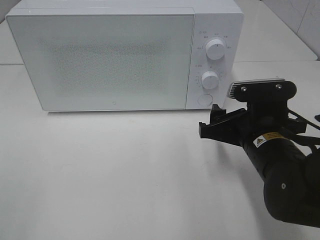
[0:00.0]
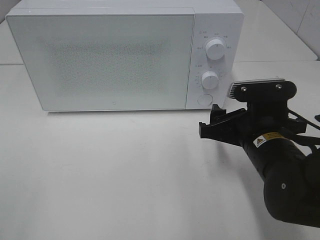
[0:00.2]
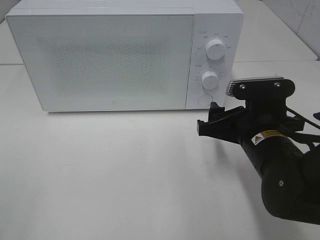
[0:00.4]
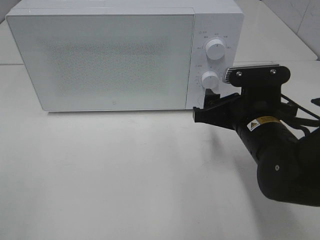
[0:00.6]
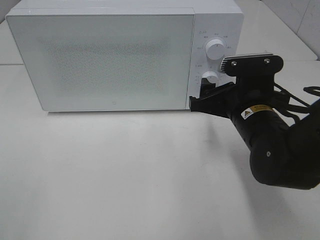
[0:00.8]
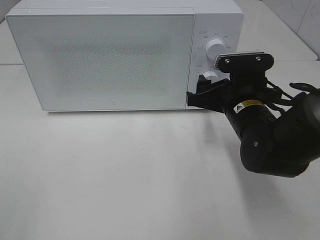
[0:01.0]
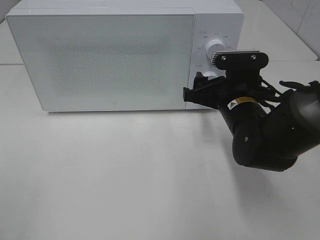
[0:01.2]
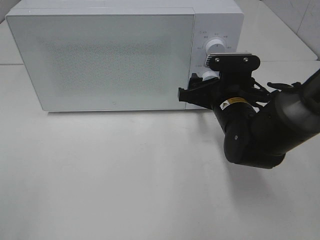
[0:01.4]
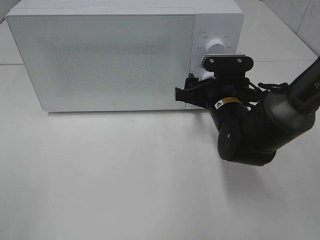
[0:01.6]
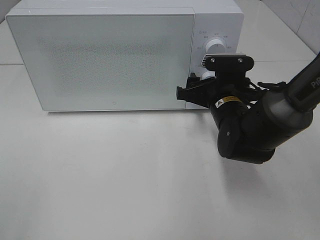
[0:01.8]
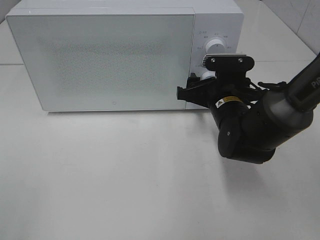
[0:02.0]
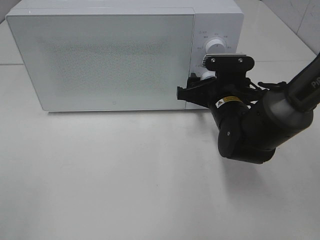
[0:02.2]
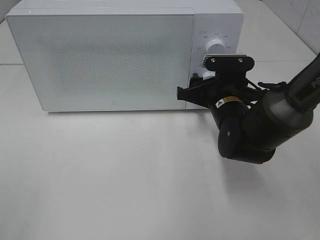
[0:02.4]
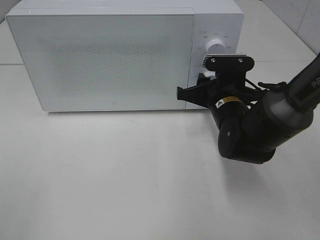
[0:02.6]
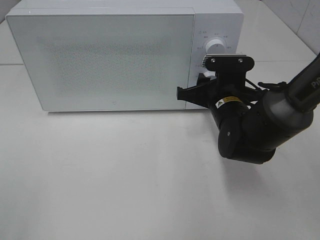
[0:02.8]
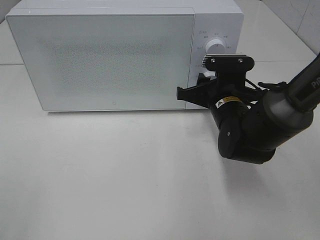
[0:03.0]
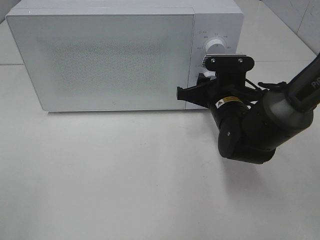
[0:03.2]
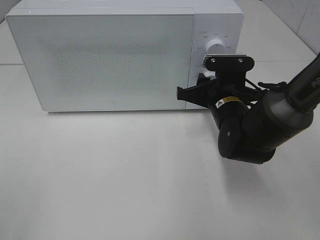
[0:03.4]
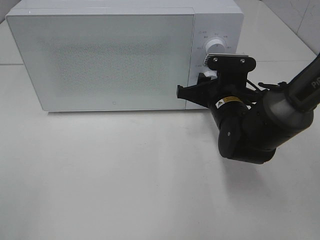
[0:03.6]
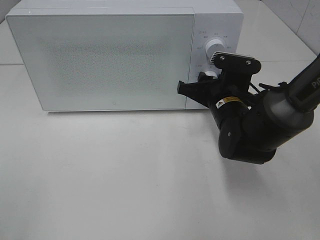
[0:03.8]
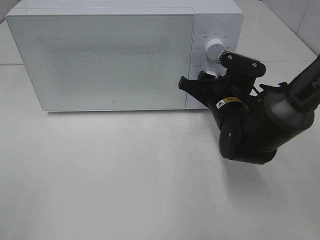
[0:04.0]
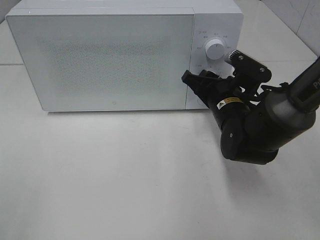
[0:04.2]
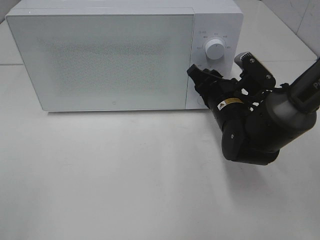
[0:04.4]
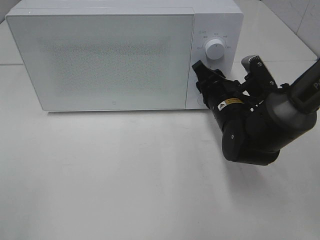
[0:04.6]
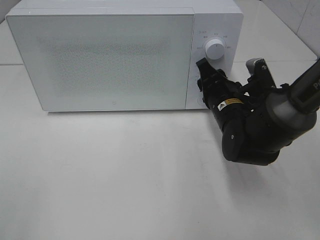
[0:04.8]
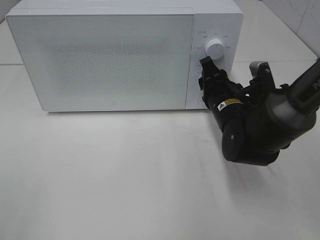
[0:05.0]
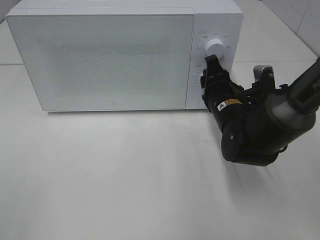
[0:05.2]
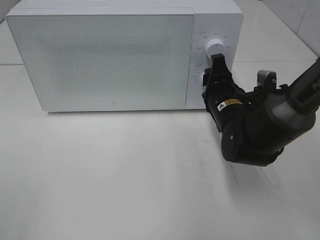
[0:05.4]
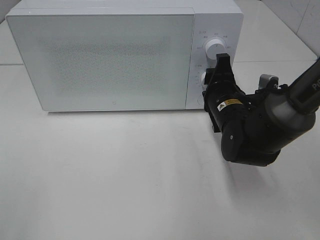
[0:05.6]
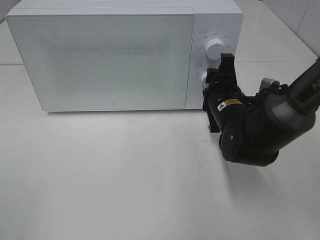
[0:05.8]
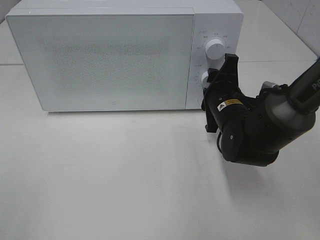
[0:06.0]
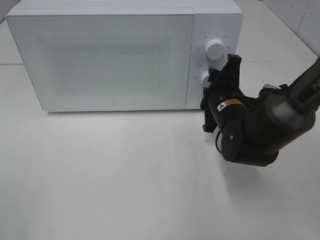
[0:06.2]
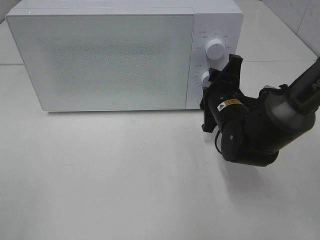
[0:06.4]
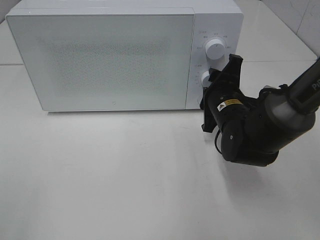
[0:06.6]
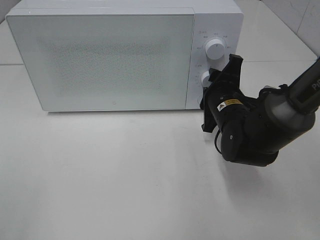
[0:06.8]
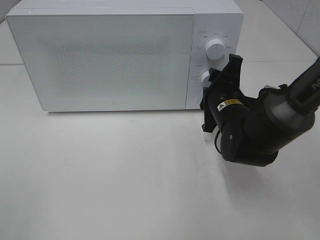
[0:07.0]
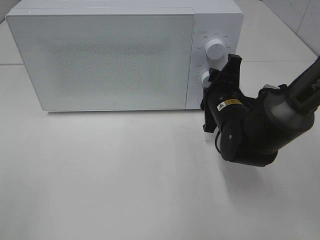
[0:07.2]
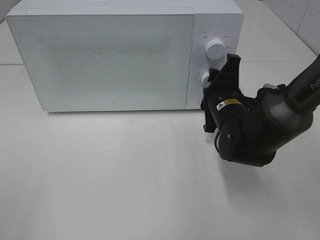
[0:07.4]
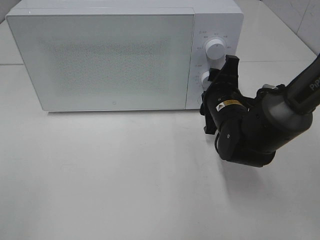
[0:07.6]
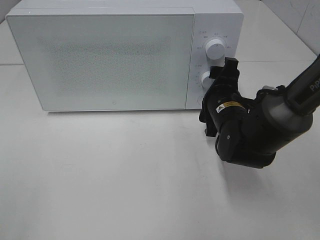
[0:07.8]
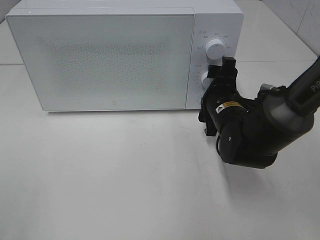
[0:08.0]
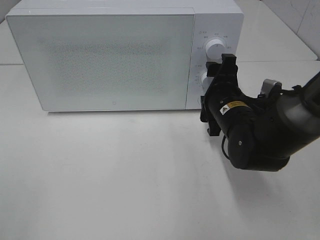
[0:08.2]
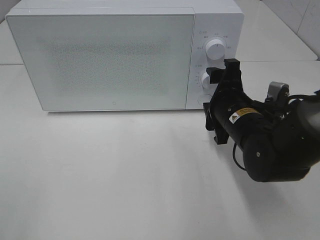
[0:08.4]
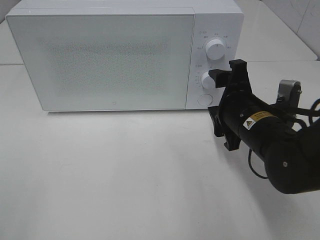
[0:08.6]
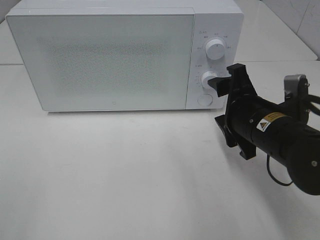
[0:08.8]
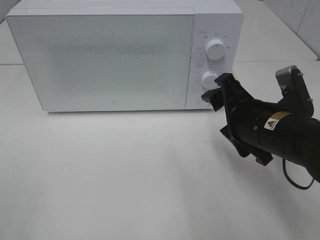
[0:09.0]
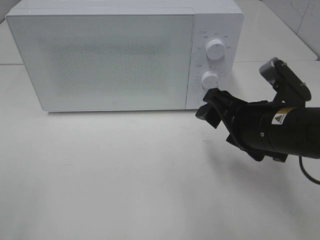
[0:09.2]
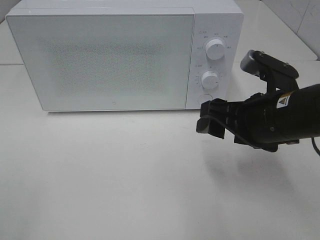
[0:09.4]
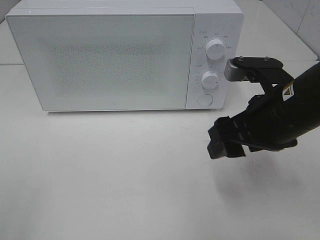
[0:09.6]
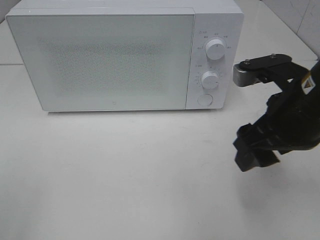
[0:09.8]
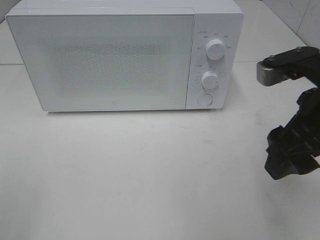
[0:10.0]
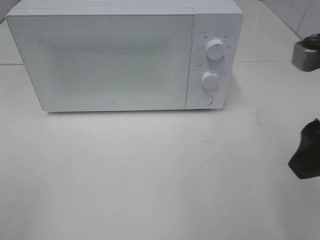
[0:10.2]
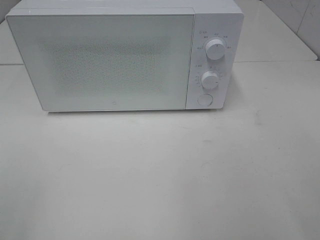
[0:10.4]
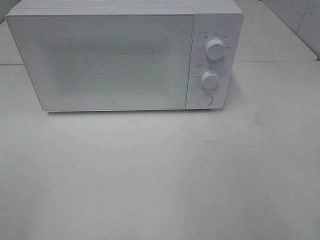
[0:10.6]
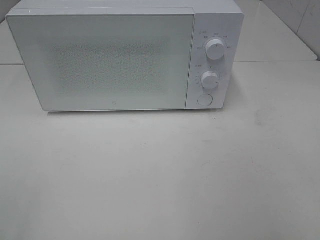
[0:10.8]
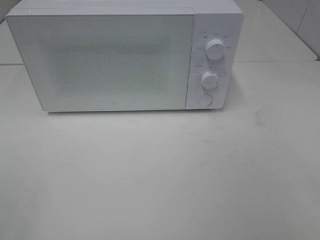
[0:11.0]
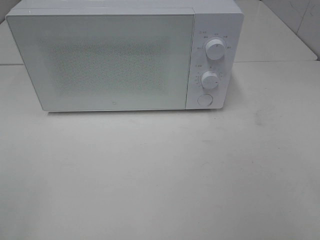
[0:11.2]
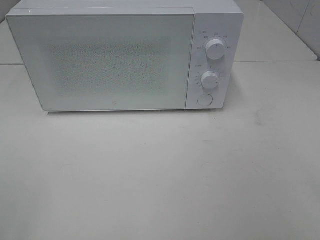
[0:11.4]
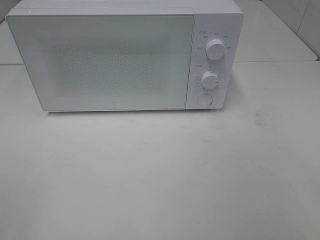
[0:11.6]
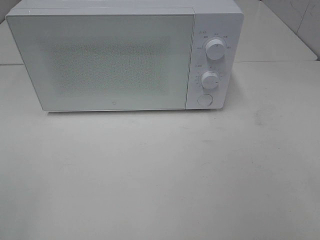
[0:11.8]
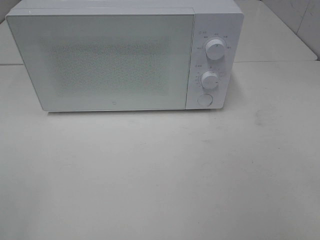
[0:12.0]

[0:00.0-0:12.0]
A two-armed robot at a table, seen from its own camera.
Task of the whole recording: Heat the burger.
Step, 0:00.0 to 0:08.0: Right hand: twist timer button.
0:00.0 to 0:01.6: The right gripper goes roughly 10 cm forward.
0:01.6 to 0:03.0: The right gripper closes up.
0:06.0 to 0:07.6: The grippers stay close to where they were, moving slightly.
0:07.6 to 0:09.0: The right gripper shifts roughly 10 cm backward and upward.
0:09.0 to 0:10.4: The right gripper travels upward, backward and to the right by approximately 20 cm.

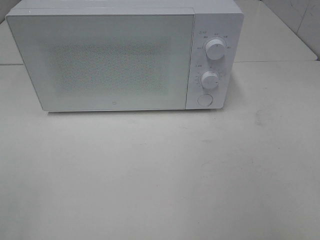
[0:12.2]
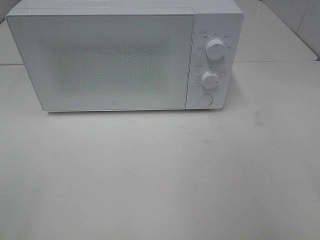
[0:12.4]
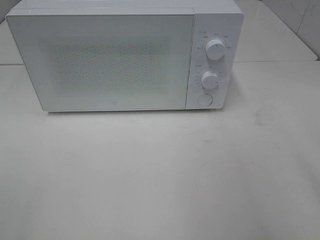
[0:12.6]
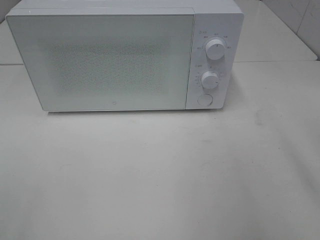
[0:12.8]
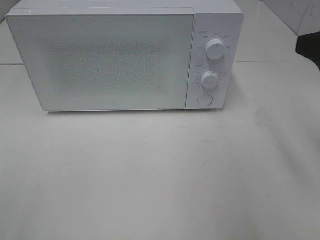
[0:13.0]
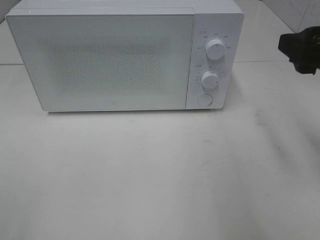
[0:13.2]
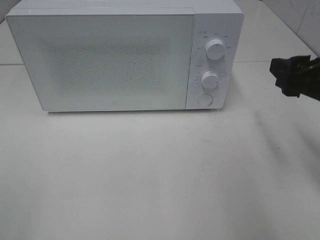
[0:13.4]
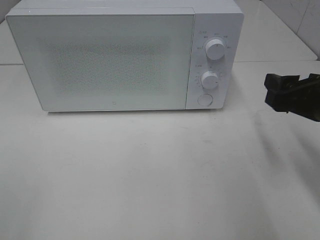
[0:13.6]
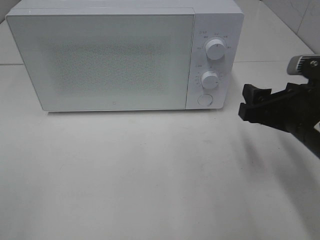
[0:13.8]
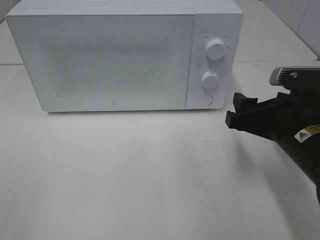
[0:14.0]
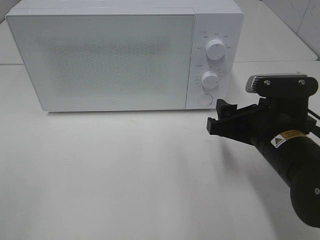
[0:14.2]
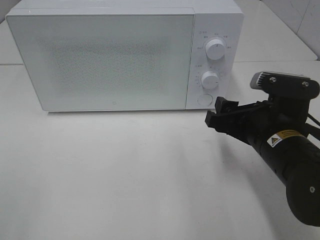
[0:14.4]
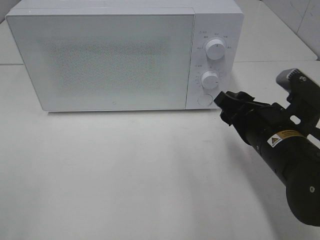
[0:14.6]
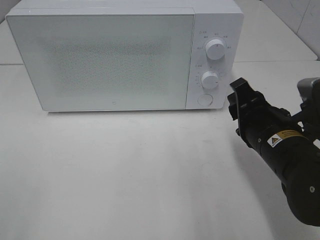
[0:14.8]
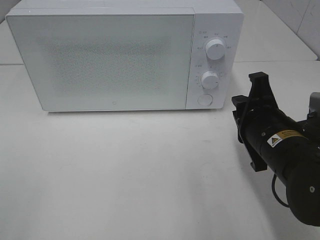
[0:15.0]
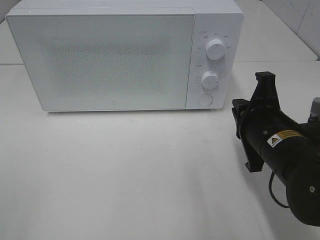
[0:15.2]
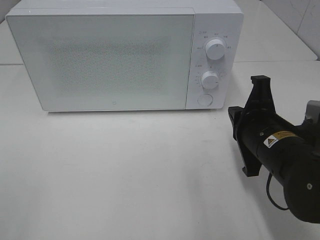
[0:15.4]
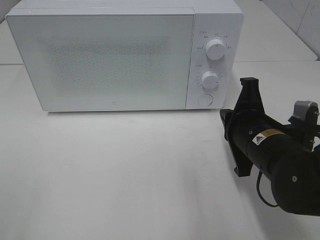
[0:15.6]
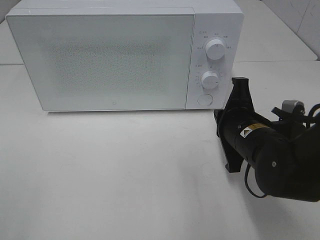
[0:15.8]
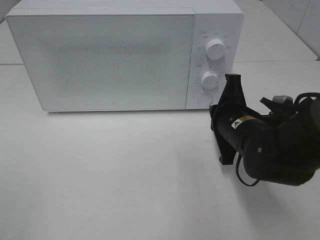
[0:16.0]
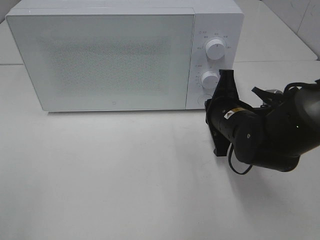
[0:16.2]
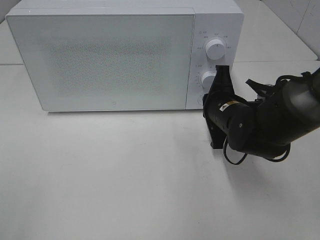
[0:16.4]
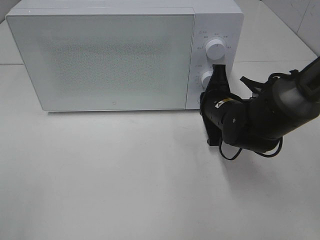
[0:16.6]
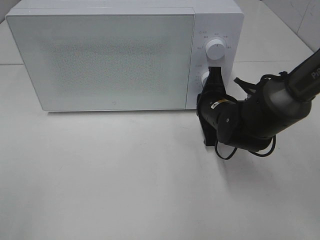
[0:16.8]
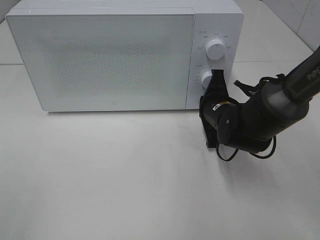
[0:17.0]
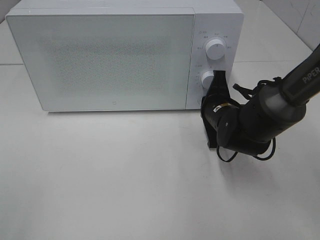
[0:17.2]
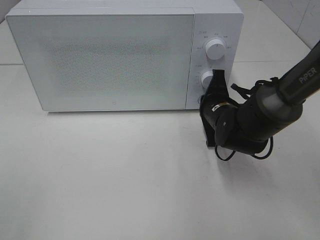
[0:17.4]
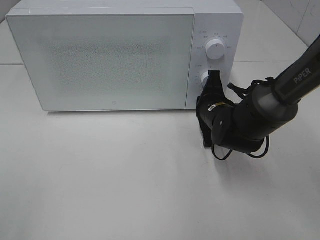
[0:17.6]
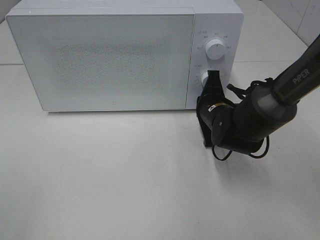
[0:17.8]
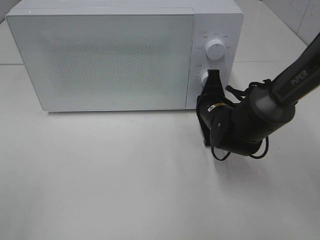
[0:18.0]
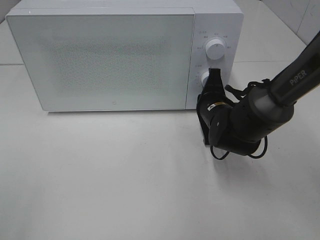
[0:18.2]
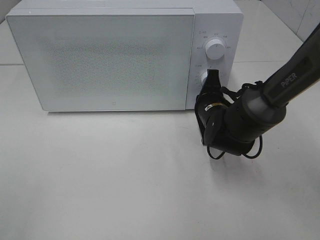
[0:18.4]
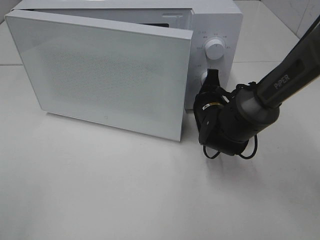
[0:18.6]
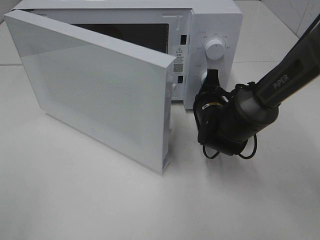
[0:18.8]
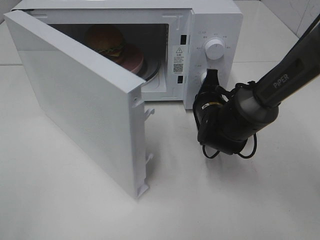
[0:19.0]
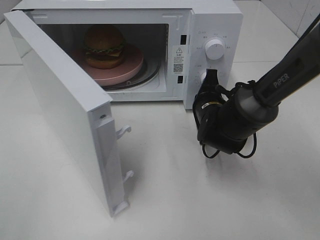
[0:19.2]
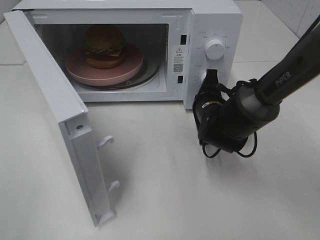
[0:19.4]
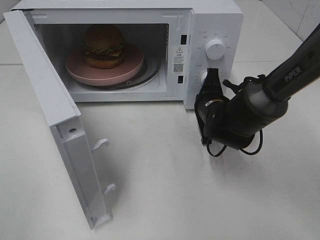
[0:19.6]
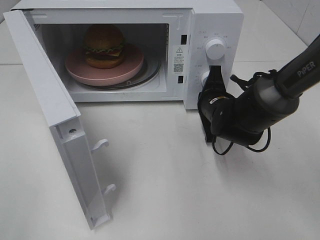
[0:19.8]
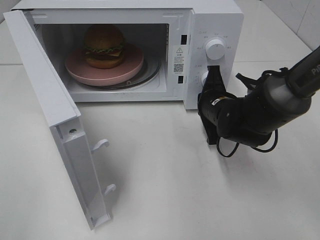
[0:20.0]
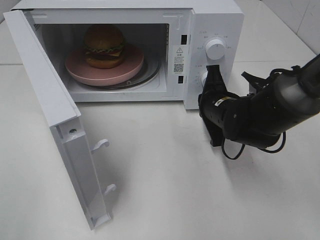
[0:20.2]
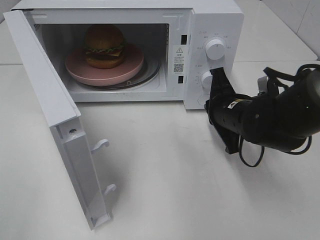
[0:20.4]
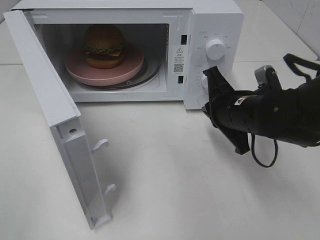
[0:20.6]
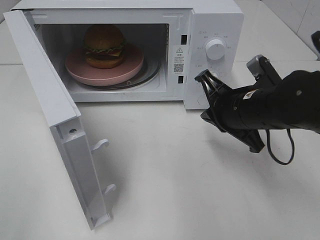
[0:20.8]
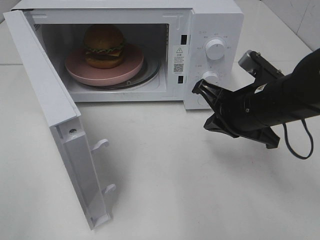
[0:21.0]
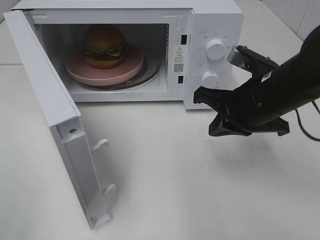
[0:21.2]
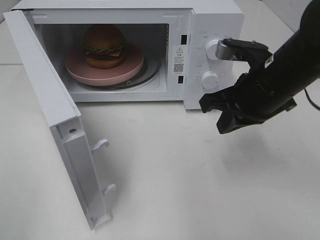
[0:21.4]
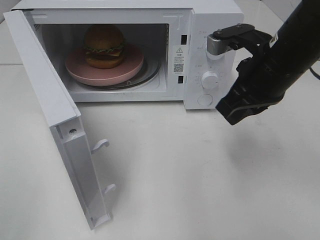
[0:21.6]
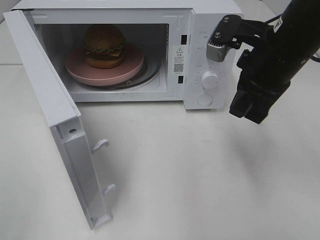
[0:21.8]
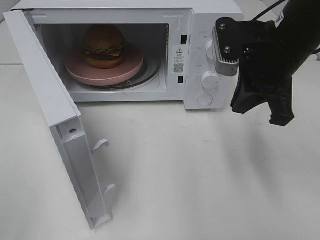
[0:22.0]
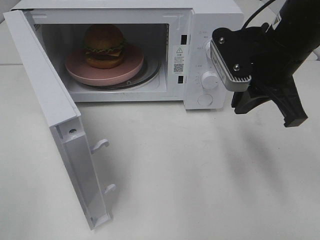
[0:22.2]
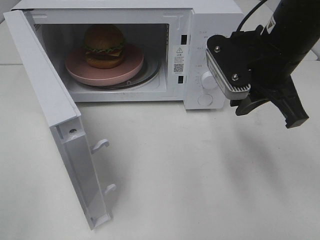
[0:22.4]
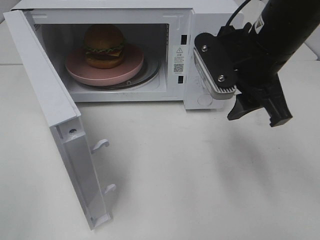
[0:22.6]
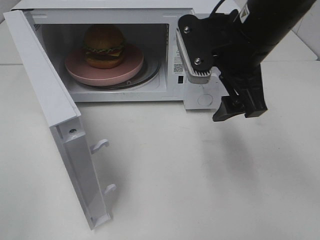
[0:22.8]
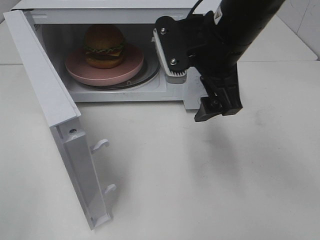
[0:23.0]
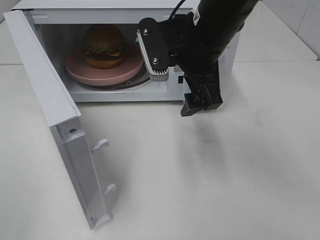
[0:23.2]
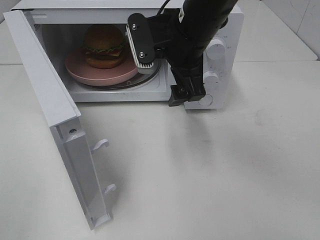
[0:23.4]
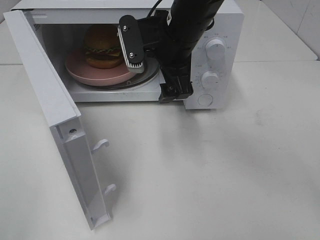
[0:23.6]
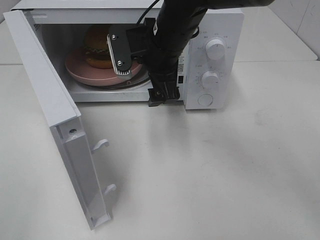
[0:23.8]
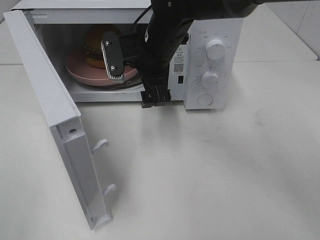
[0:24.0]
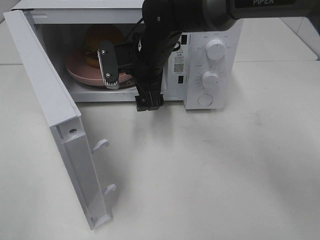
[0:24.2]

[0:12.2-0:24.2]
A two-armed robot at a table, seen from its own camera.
Task of the whole recording: Heat the burger.
Step, 0:12.2 to 0:20.2: Right hand: press the switch.
0:12.2 to 0:13.8: The right gripper heads forward and downward, covering about 25 cm.
0:13.8 to 0:15.2: The right gripper ends up about 5 cm from where it was, and closes up.
0:15.2 to 0:16.6: The right gripper travels forward by about 10 cm.
0:16.6 to 0:18.2: The grippers move only a little.
0:19.8 to 0:21.2: The right gripper travels upward and backward by roughly 15 cm.
0:21.2 to 0:22.6: The right gripper travels upward by roughly 5 cm, and opens.
0:22.6 to 0:24.2: The right gripper travels to the left, forward and downward by approximately 20 cm, and opens its fingers.
